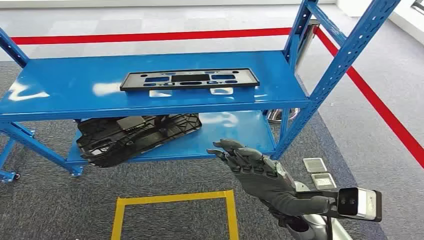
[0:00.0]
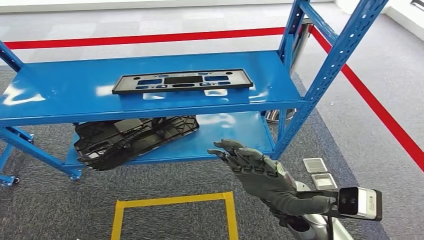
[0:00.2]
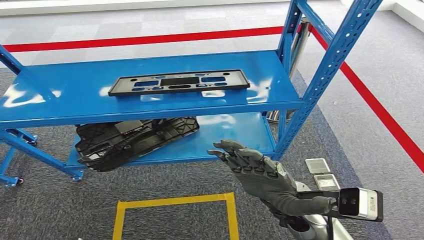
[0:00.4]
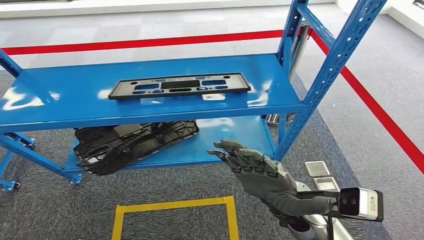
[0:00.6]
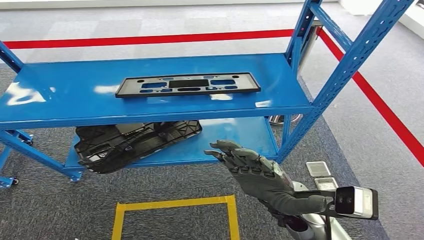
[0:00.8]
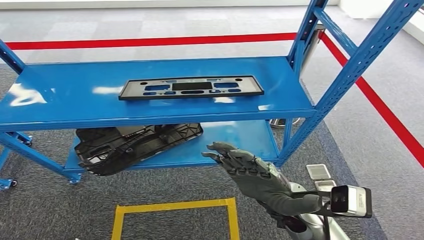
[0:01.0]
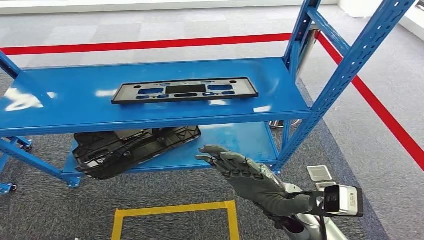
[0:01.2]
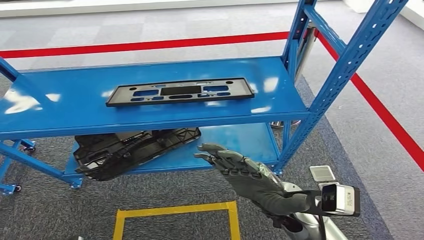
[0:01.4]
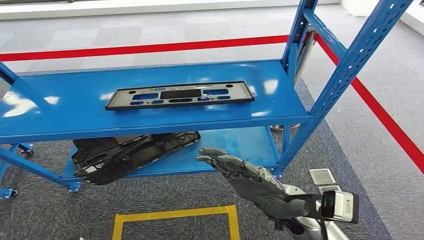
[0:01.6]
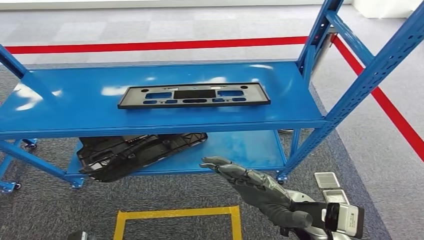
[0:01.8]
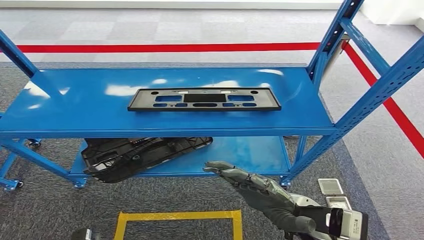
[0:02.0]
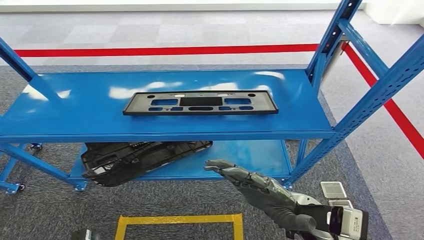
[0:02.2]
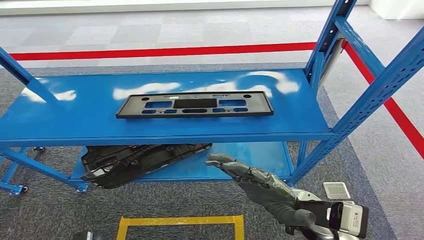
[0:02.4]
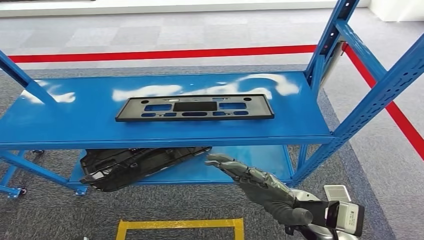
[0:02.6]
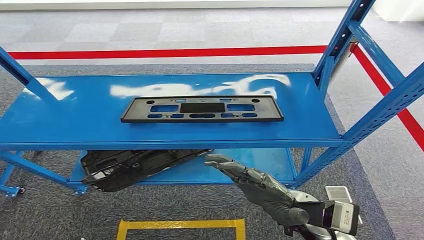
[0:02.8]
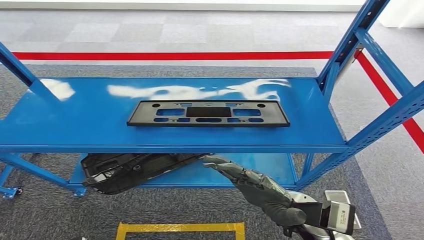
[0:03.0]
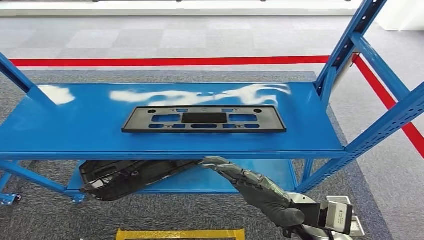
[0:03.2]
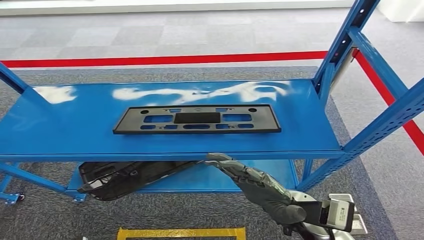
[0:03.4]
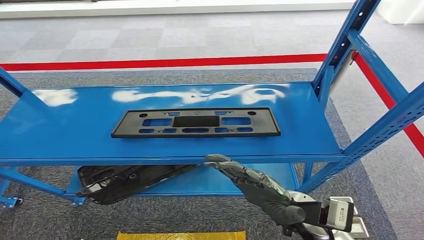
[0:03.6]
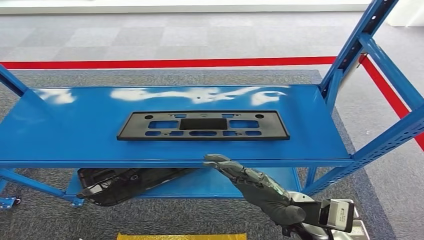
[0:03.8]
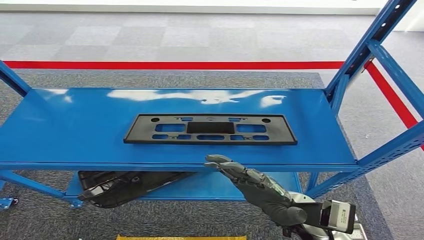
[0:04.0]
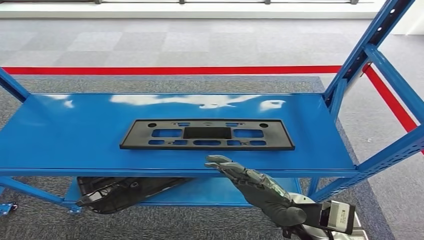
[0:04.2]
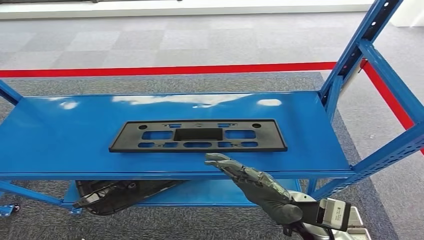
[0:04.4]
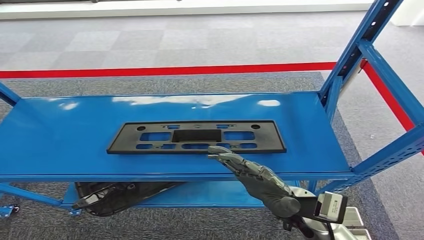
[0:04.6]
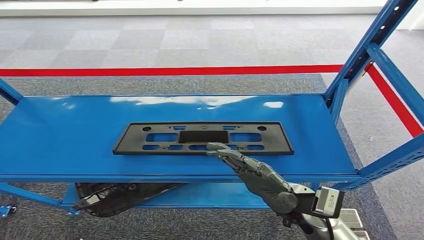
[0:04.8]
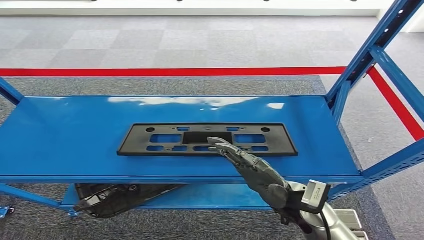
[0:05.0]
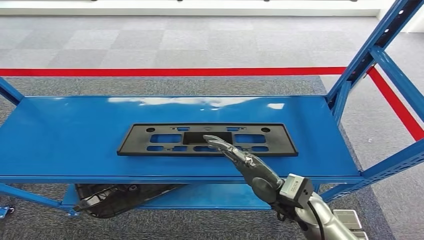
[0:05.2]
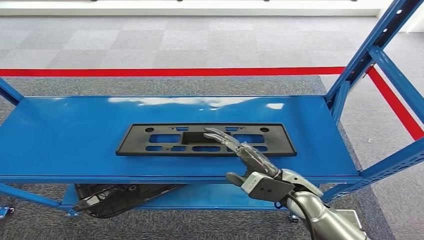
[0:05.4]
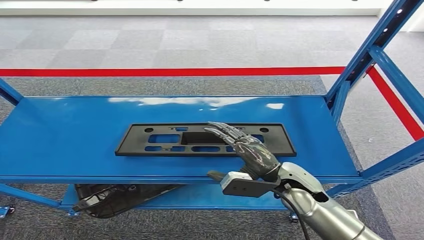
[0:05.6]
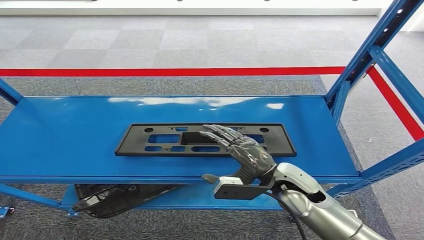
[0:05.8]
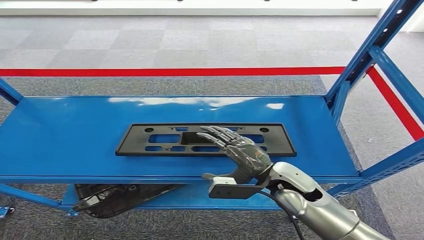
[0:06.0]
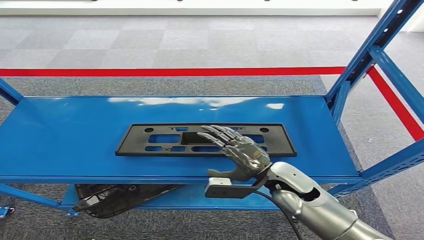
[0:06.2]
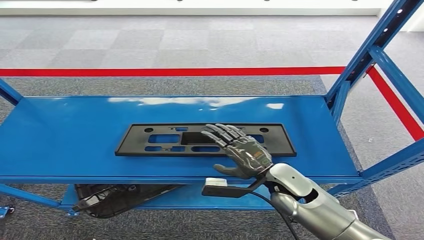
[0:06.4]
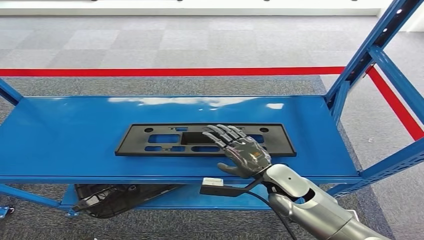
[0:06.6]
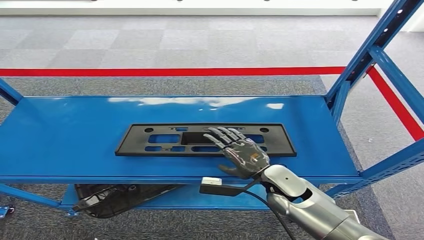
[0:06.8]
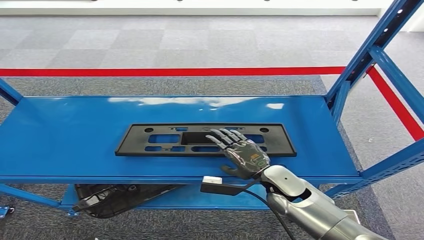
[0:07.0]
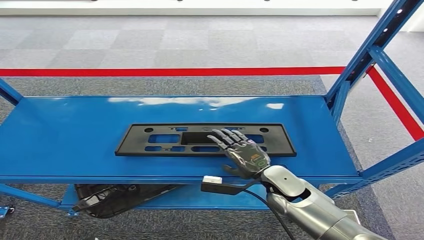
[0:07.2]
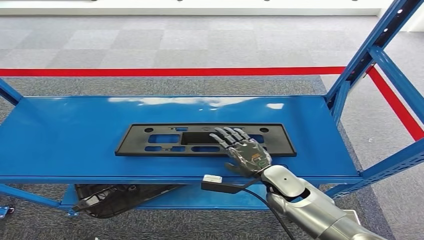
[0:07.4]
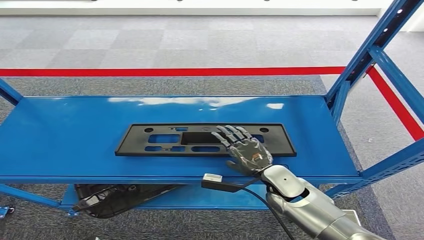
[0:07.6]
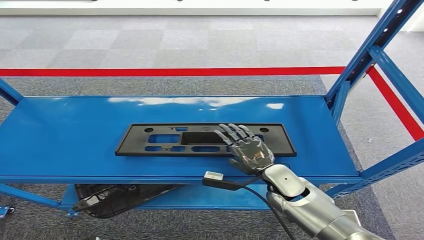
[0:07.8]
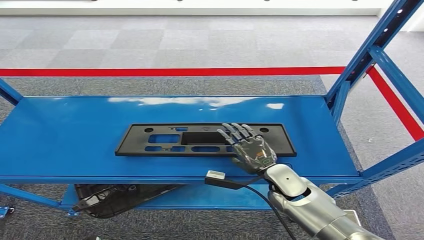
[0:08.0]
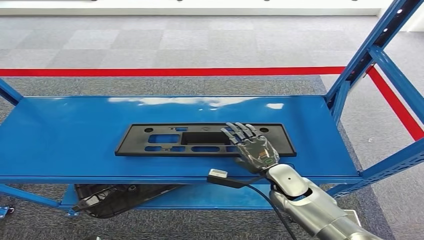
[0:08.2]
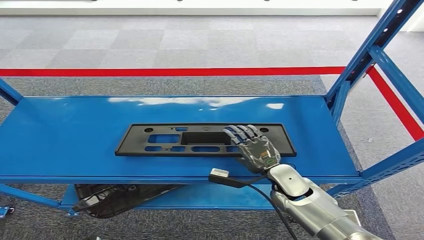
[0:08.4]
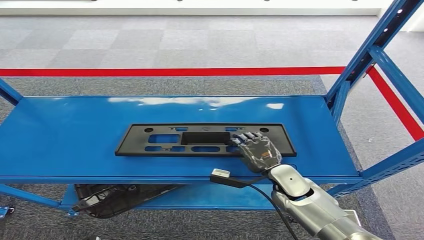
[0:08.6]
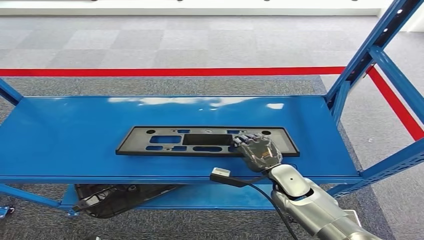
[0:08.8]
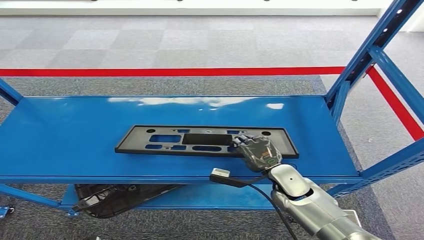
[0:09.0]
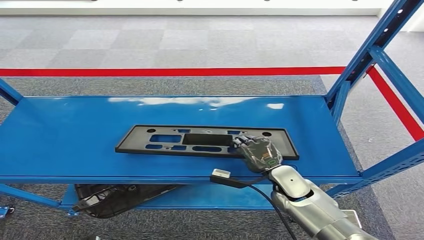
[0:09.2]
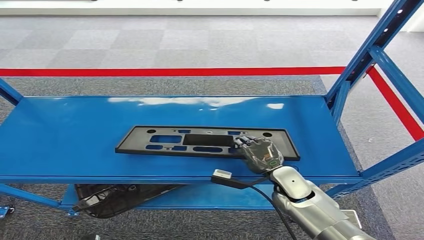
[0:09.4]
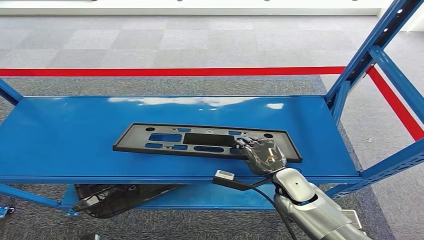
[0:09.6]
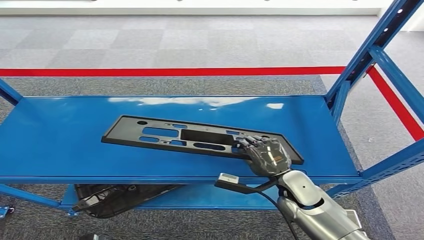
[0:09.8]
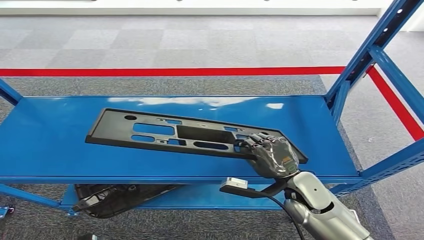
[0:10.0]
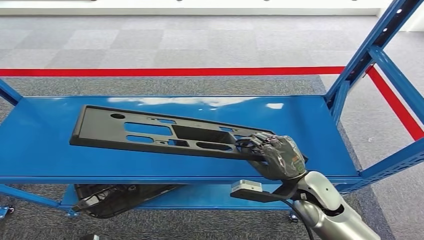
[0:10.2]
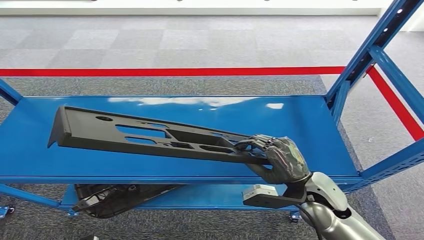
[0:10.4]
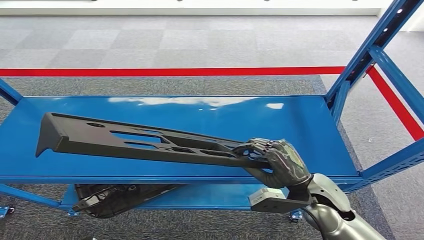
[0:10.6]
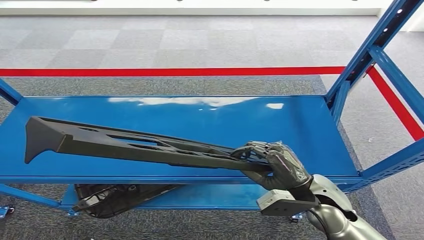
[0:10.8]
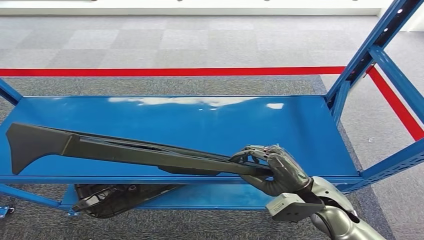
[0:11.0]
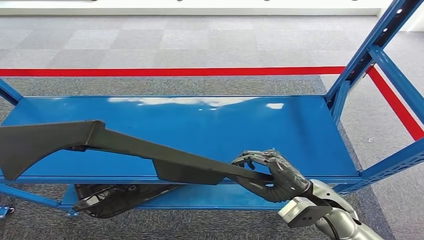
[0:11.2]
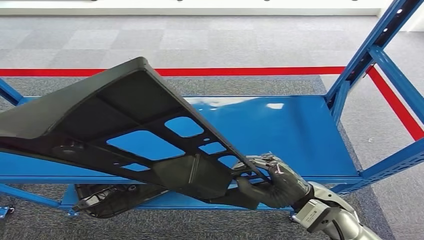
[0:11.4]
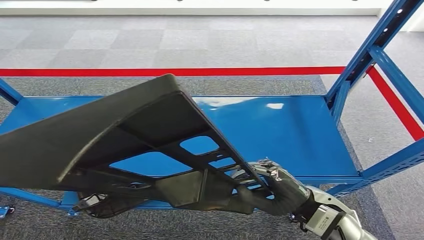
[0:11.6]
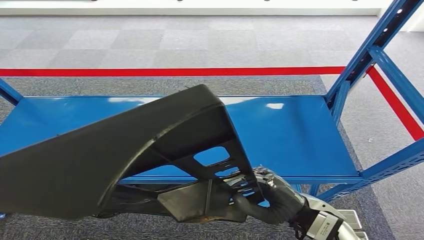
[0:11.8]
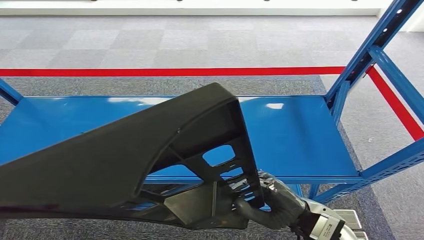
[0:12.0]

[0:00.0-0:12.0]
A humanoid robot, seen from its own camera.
0:06.0 to 0:07.6: The right hand moves downward, some 5 cm.
0:07.6 to 0:09.0: The hands move only a little.
0:09.0 to 0:10.4: The right hand is displaced upward and backward by roughly 10 cm.

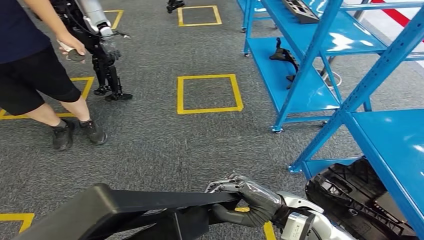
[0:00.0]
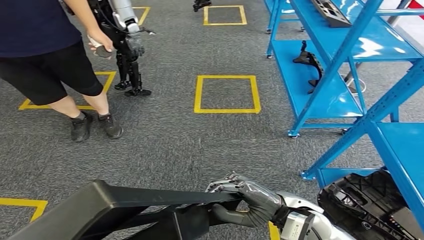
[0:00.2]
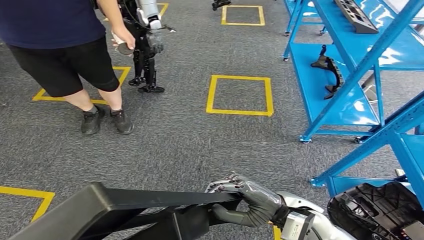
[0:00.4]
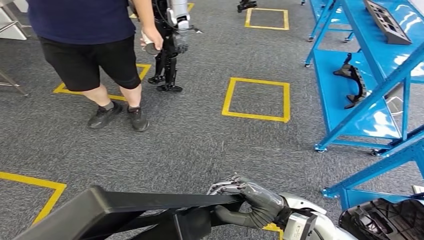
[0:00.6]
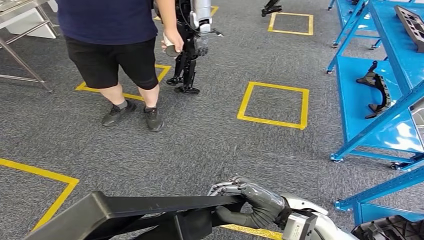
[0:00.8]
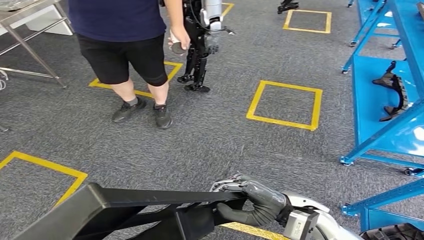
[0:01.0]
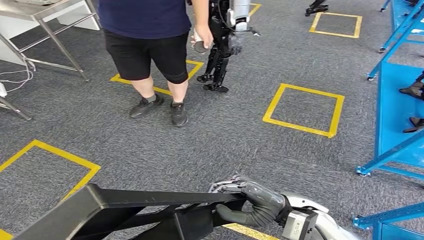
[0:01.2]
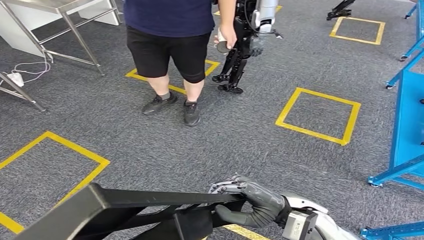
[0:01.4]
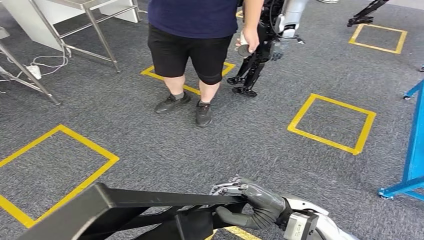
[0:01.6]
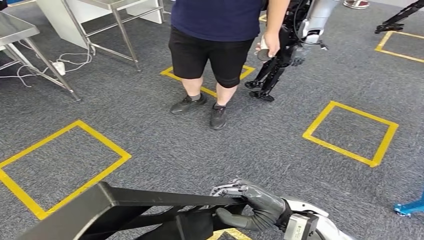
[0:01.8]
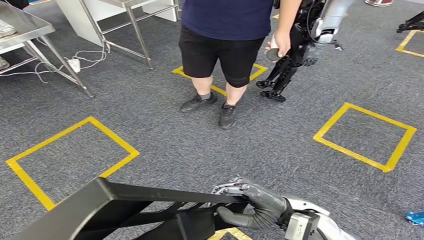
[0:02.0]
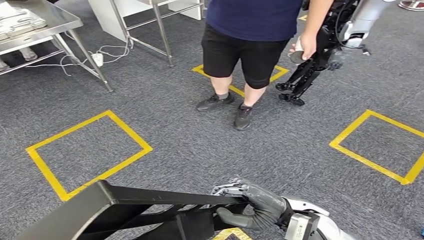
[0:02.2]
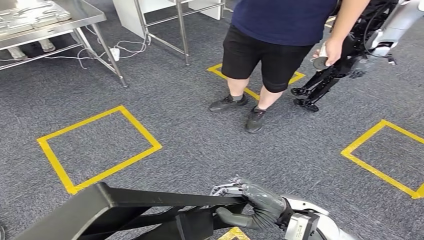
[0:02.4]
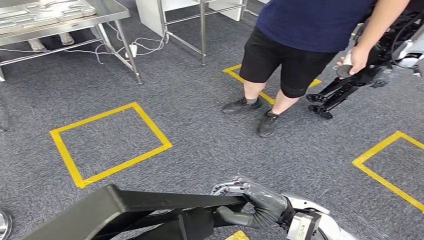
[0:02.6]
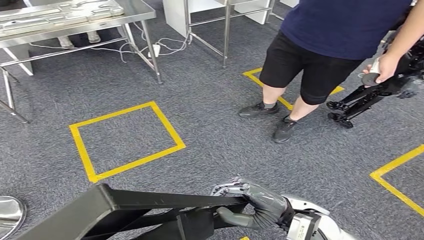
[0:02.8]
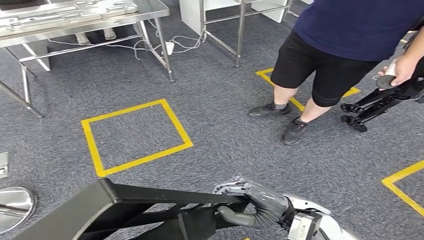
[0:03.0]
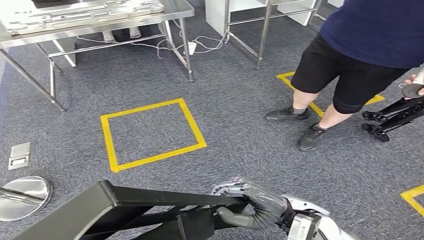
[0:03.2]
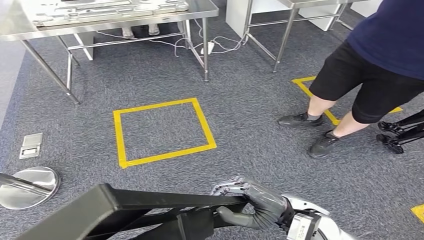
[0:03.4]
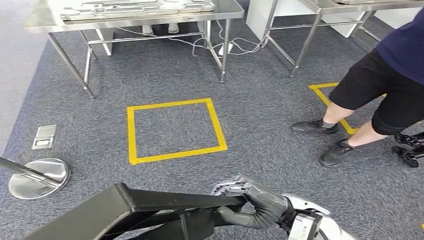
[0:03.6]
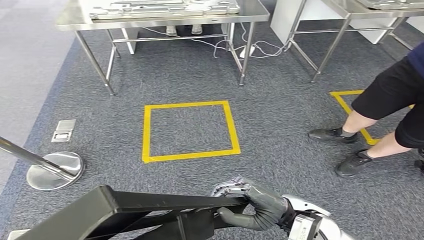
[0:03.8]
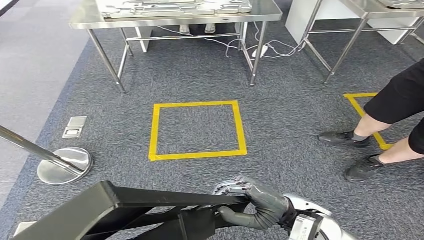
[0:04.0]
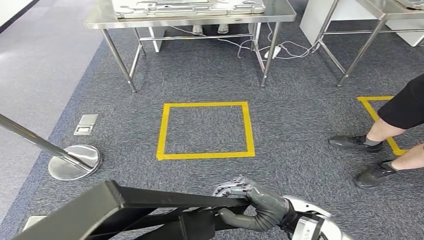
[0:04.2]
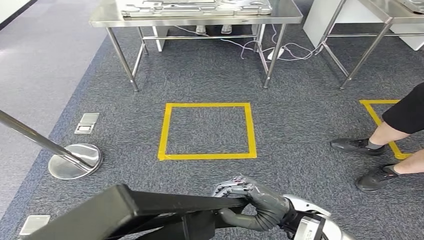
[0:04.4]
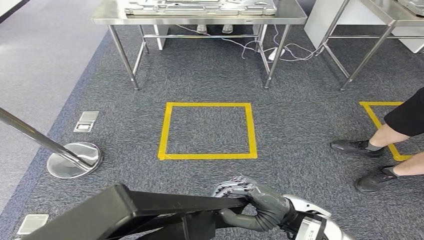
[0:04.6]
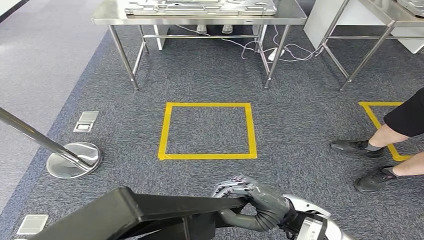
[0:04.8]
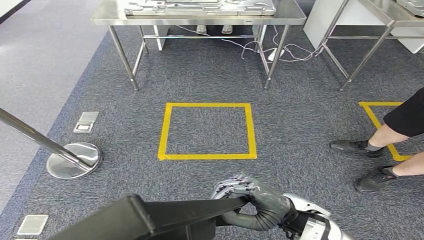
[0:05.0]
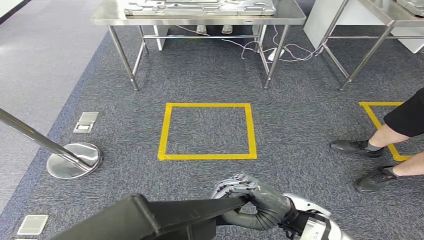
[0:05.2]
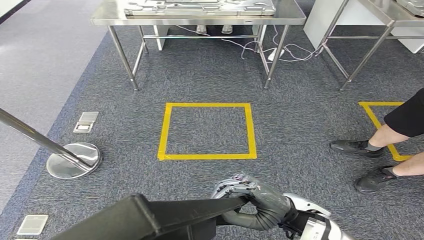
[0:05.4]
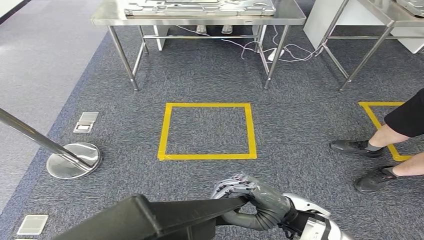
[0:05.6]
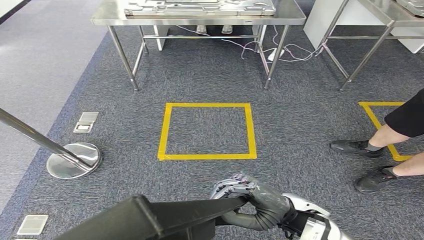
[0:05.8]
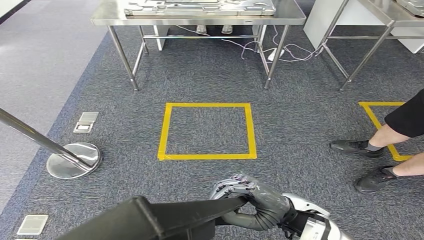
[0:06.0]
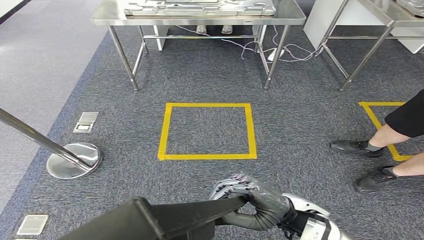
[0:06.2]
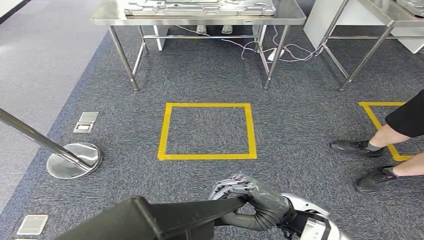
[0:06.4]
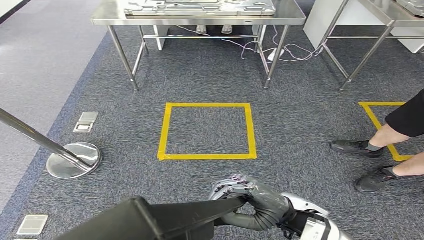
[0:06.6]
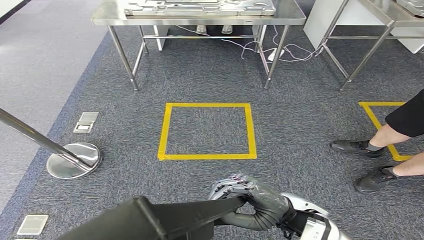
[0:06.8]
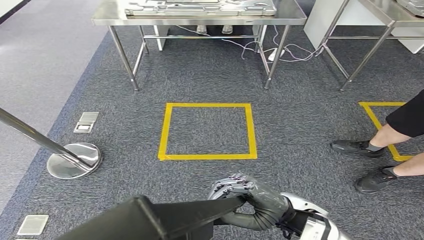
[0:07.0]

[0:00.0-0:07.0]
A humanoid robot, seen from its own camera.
0:05.6 to 0:07.0: Both hands stay put.
